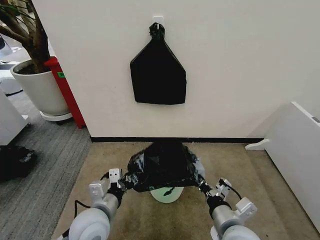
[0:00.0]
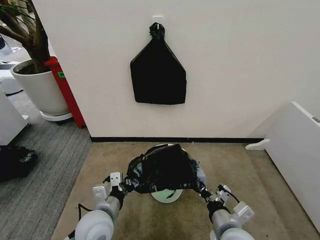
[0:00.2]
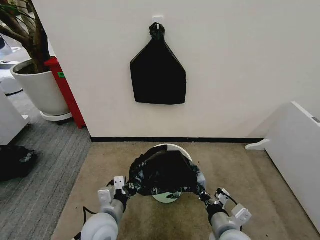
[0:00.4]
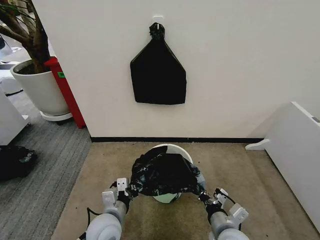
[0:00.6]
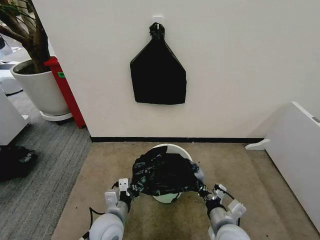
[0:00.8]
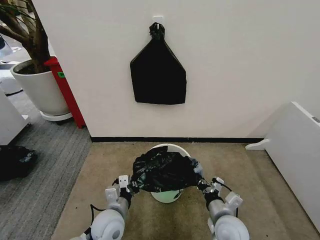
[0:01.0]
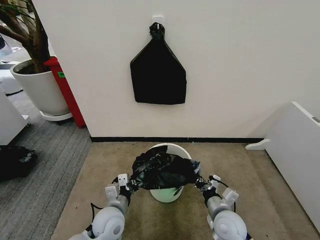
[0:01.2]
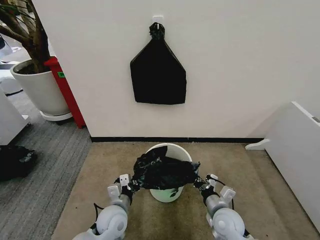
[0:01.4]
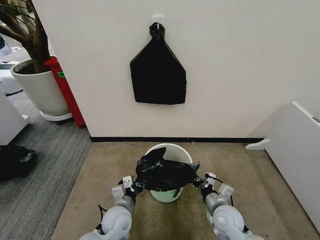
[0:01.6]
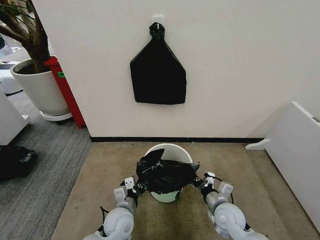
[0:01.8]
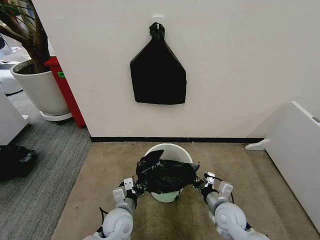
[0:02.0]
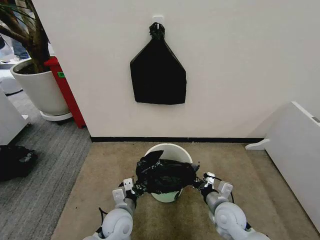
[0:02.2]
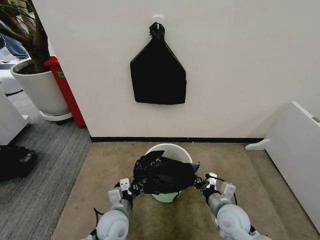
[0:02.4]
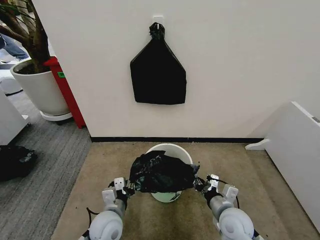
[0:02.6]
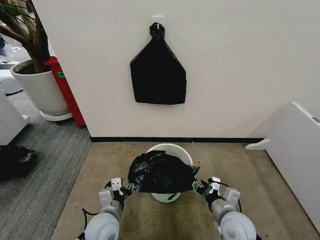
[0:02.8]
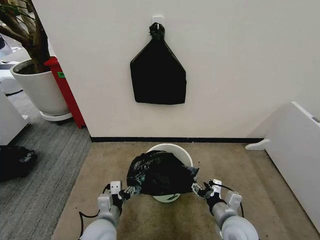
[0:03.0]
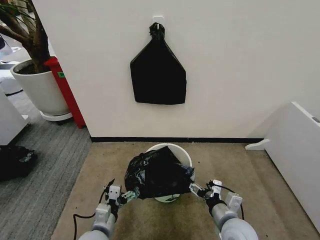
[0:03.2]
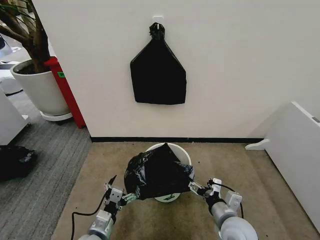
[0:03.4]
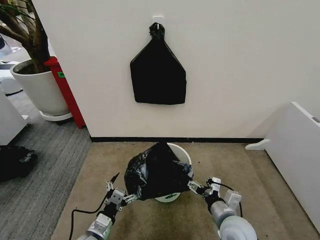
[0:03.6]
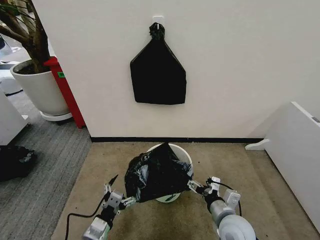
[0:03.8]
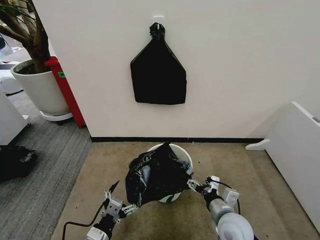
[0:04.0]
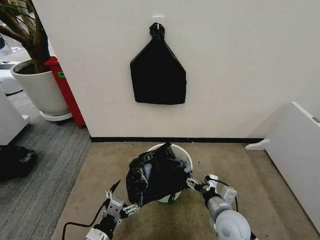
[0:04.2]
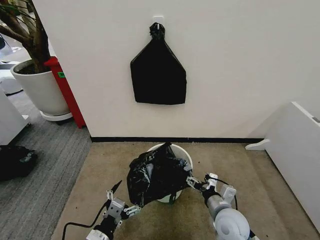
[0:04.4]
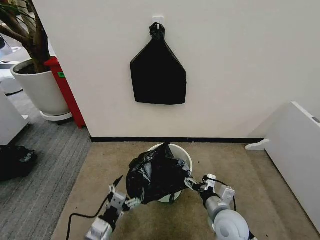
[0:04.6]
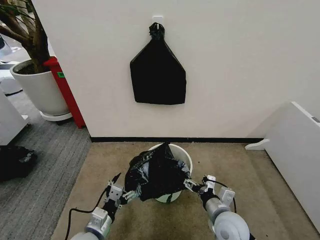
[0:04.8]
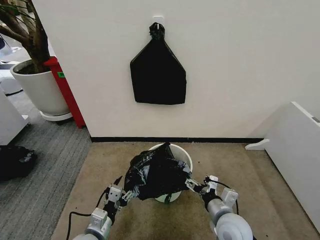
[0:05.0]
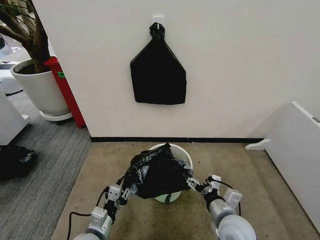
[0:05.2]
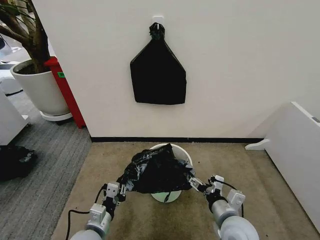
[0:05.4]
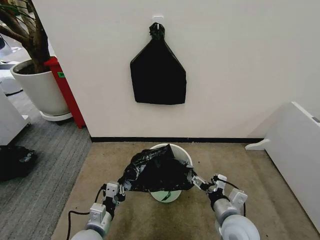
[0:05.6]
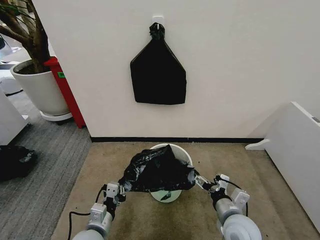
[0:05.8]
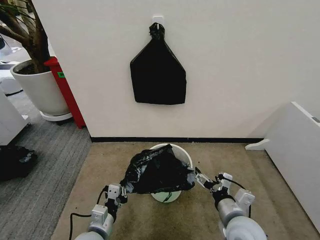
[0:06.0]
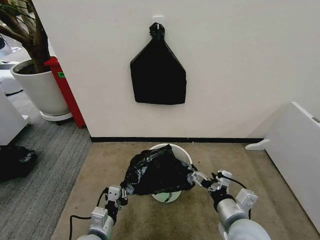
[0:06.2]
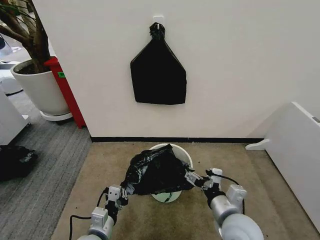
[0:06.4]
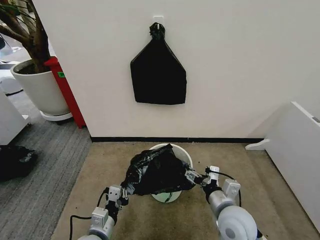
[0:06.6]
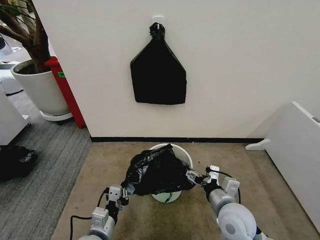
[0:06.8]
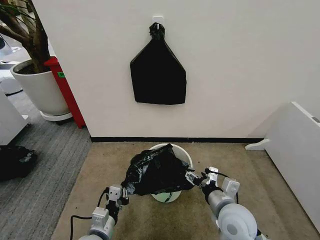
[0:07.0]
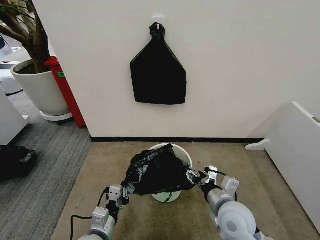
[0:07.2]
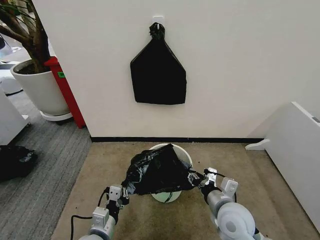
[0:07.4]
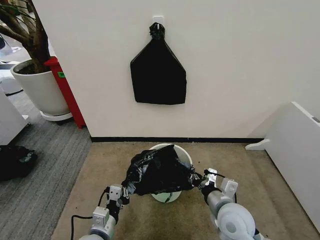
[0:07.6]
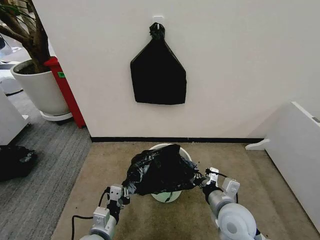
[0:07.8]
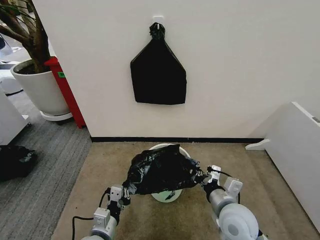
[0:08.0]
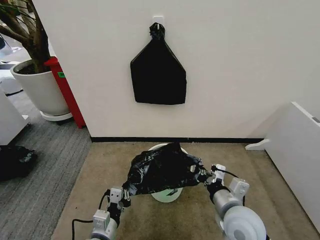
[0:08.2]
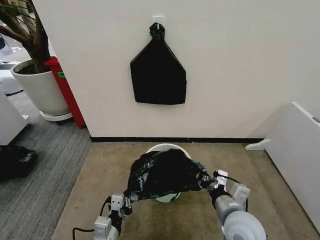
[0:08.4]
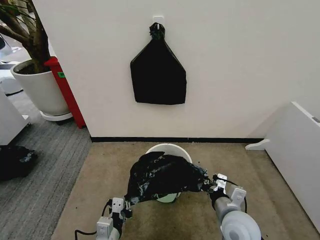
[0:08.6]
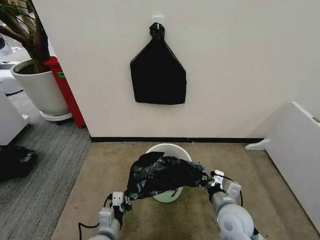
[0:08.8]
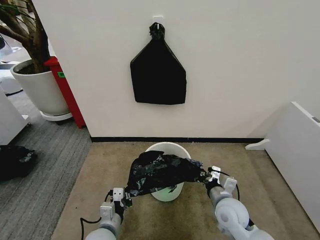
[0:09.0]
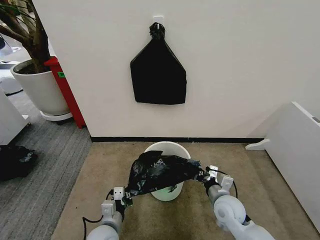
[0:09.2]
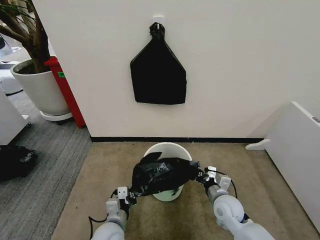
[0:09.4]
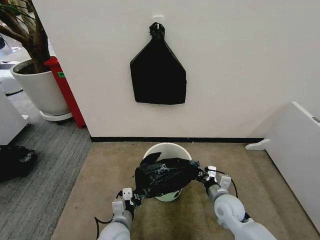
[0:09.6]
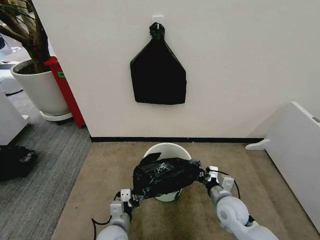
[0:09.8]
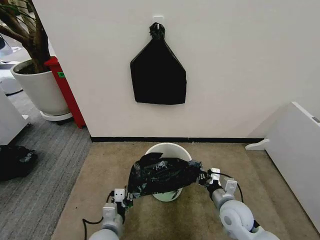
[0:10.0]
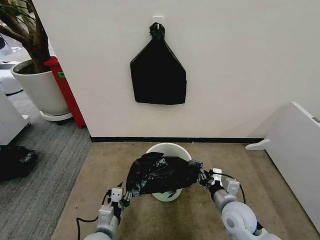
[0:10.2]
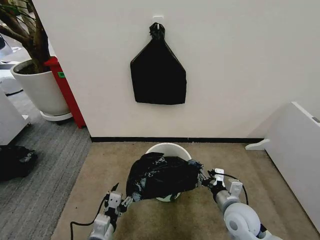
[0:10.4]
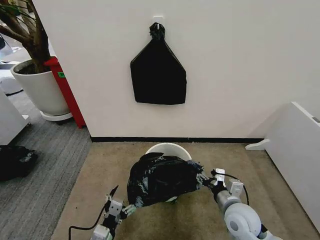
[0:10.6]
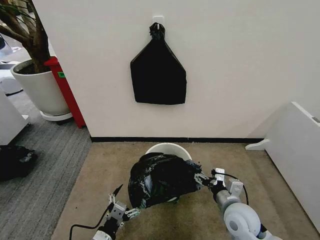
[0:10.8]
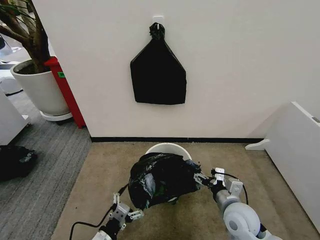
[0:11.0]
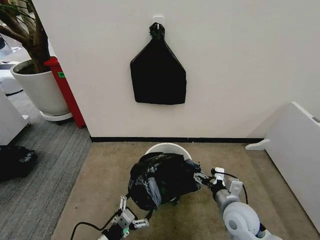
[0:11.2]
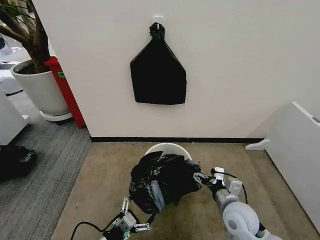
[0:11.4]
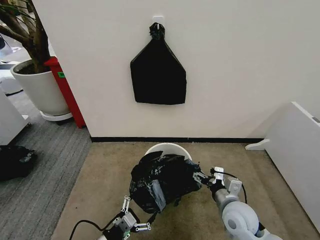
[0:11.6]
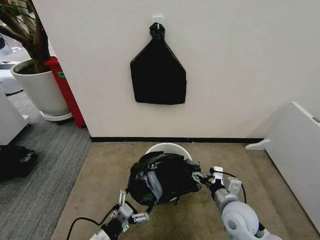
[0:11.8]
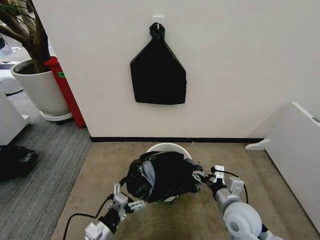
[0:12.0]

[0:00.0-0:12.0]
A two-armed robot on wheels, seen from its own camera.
Task of the whole recording: Place the garbage bag over the trash bin.
0:00.0 to 0:01.6: The right gripper travels downward and forward by roughly 15 cm, while the left gripper travels downward by some 15 cm.
0:01.6 to 0:03.0: The grippers both shift backward by approximately 5 cm. The right gripper opens. Meanwhile the left gripper opens up.
0:03.0 to 0:04.4: The left gripper shifts approximately 10 cm backward.
0:04.4 to 0:06.0: The left gripper is displaced forward by about 5 cm, and closes its fingers, while the right gripper moves upward, approximately 5 cm.
0:06.0 to 0:07.6: The right gripper closes up.
0:07.6 to 0:09.0: The right gripper ends up roughly 5 cm from where it was.
0:09.0 to 0:10.4: The right gripper opens up, while the left gripper opens its fingers.
0:10.4 to 0:12.0: The right gripper opens up.

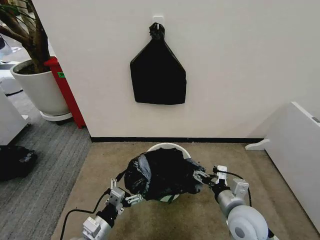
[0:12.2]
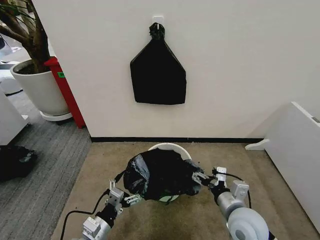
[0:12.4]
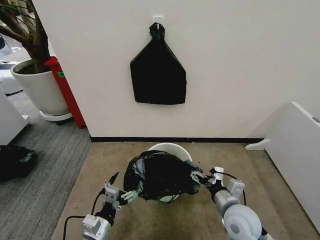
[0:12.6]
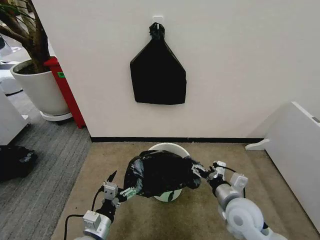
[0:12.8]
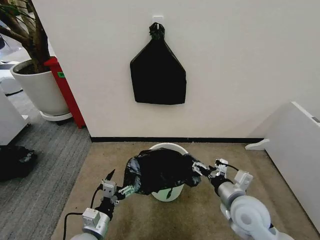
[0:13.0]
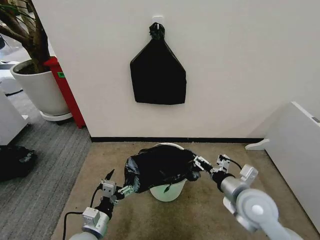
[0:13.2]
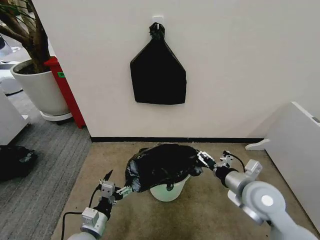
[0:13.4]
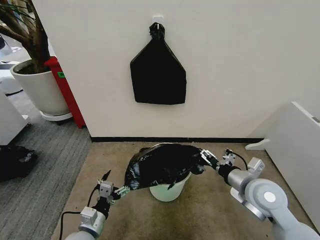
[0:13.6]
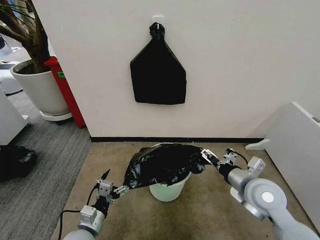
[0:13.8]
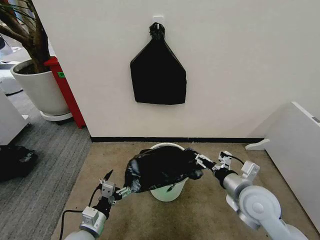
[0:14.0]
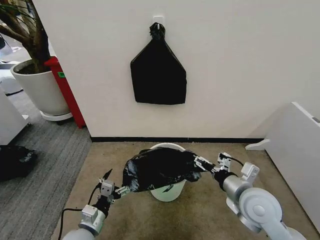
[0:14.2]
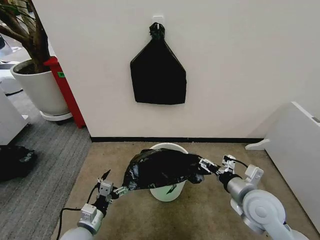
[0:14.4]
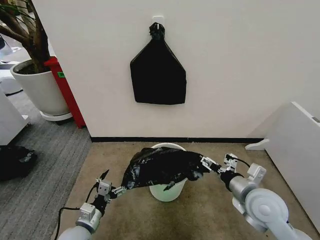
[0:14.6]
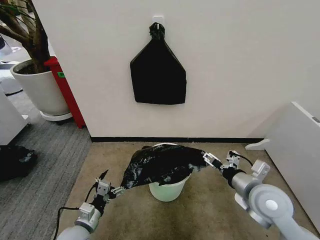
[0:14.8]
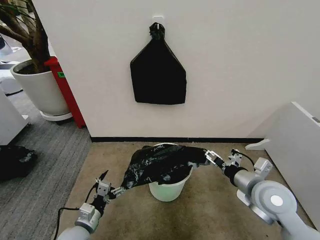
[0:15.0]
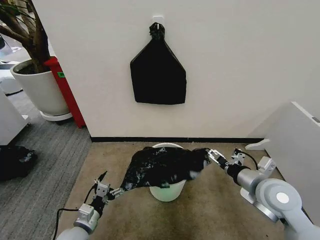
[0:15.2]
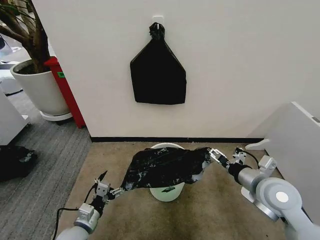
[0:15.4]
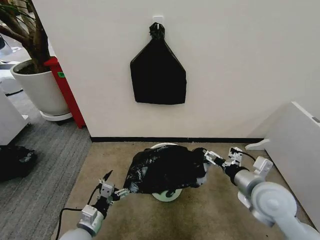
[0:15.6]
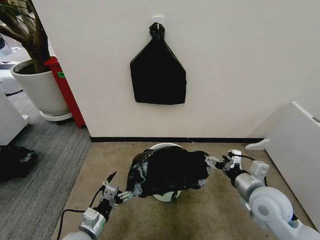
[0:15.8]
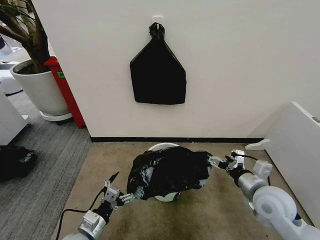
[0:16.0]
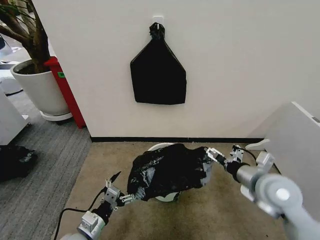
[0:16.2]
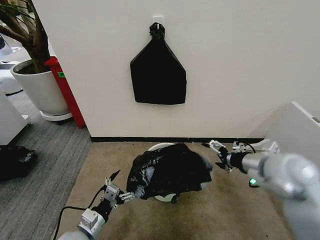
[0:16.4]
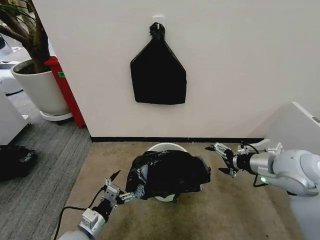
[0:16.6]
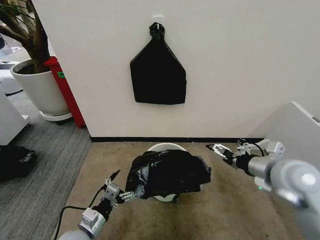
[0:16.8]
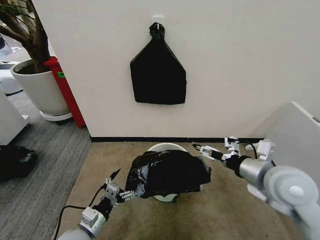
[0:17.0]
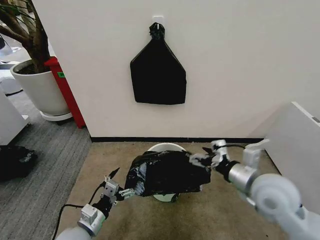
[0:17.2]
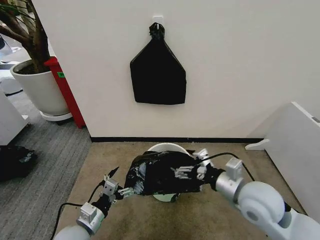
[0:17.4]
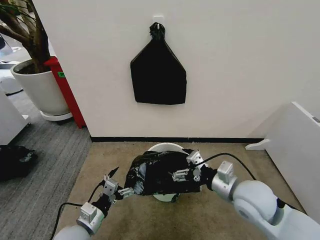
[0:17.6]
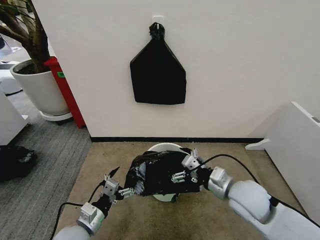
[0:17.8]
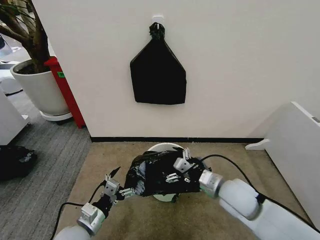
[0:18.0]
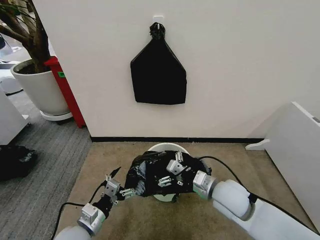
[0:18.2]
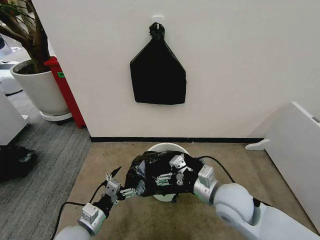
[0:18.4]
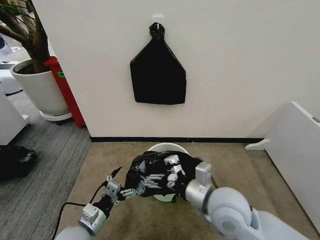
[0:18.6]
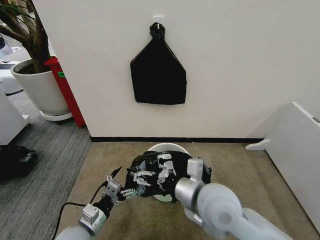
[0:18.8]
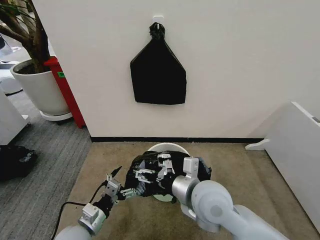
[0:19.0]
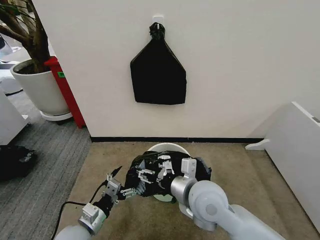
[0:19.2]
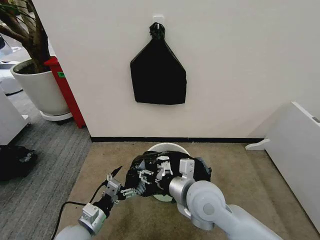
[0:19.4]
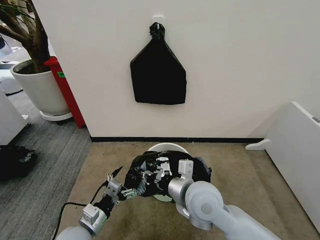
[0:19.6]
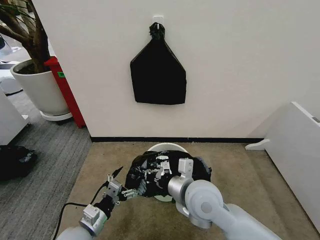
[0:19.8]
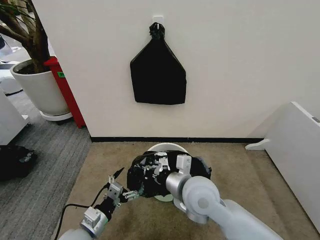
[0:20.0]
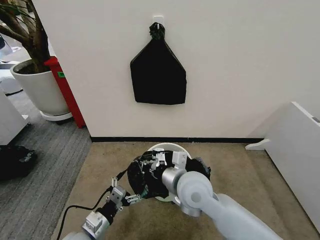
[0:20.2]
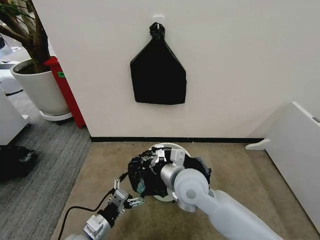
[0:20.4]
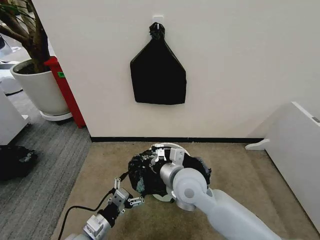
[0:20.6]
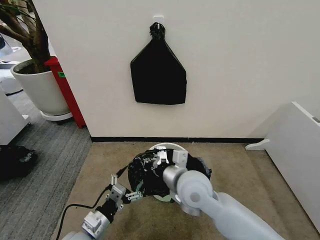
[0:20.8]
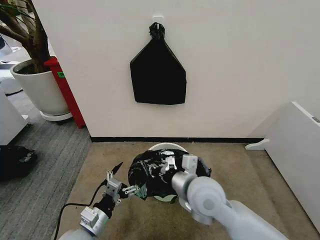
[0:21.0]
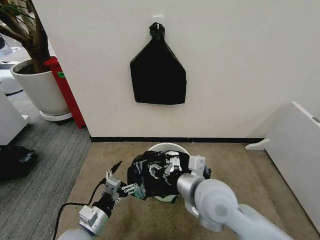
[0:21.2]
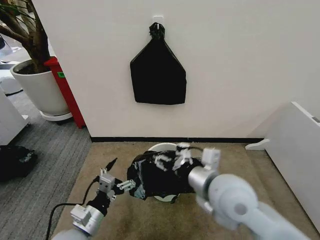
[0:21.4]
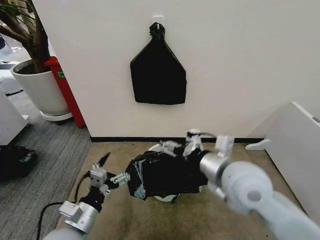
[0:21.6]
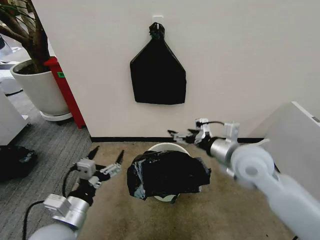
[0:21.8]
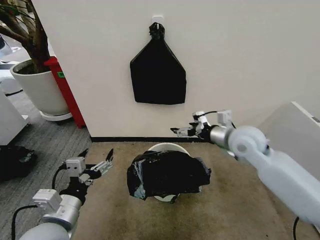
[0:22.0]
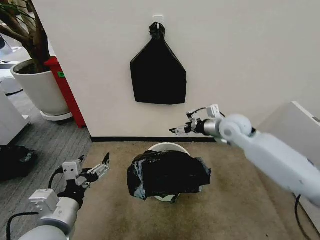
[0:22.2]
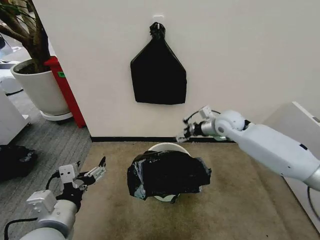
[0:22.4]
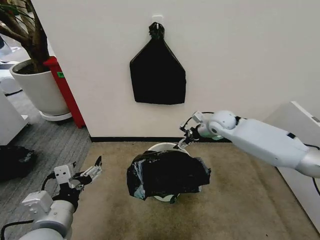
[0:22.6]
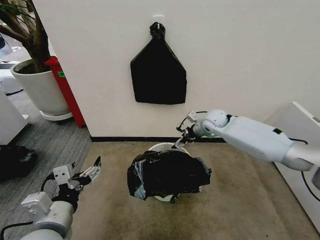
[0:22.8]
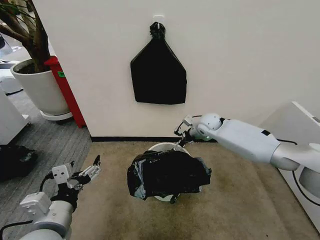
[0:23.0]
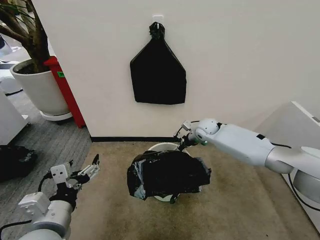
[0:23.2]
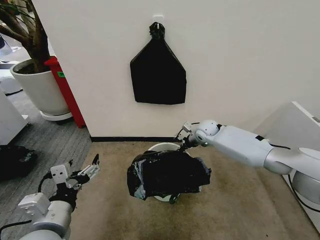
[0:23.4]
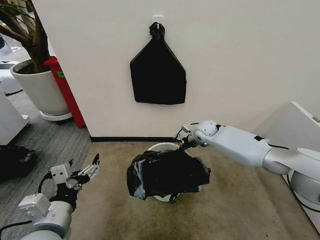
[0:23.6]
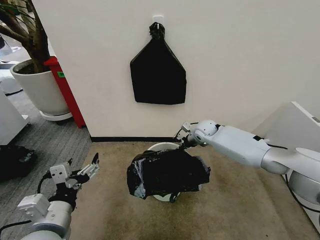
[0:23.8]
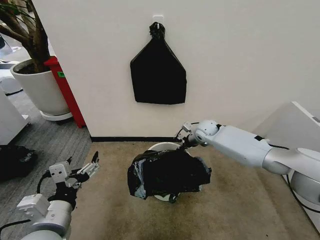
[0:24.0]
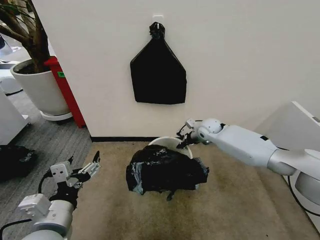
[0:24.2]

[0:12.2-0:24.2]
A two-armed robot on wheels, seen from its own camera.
Task of the whole recording: Place the garbage bag over the trash bin.
0:12.2 to 0:13.8: The right gripper shifts roughly 10 cm upward and forward.
0:13.8 to 0:15.2: The grippers move only a little.
0:15.2 to 0:16.6: The right gripper is displaced upward by roughly 5 cm.
0:16.6 to 0:18.2: The right gripper shifts roughly 20 cm to the left and downward.
0:18.2 to 0:19.8: The right gripper heads to the left, covering approximately 10 cm, and closes.
0:19.8 to 0:21.2: The grippers make only small movements.
0:21.2 to 0:22.6: The left gripper heads upward, covering approximately 15 cm. The right gripper heads forward, covering approximately 30 cm, and opens up.
0:22.6 to 0:24.2: The right gripper is displaced downward by roughly 5 cm, and closes up.
